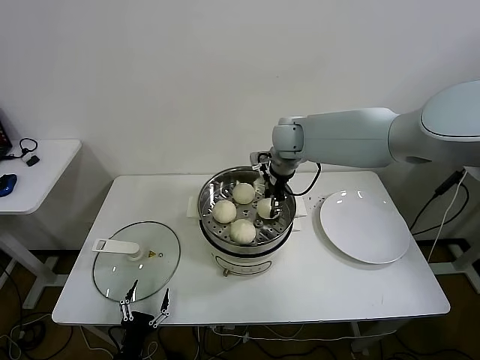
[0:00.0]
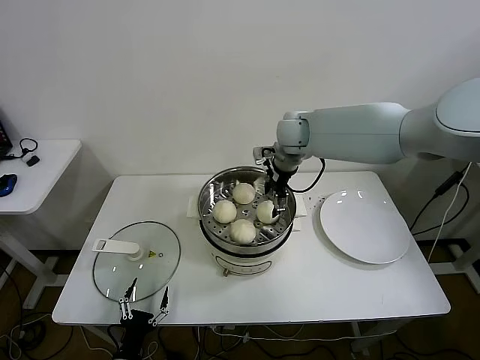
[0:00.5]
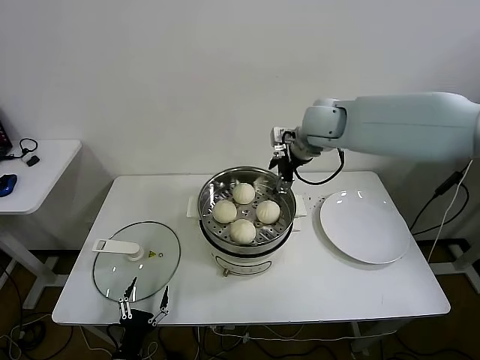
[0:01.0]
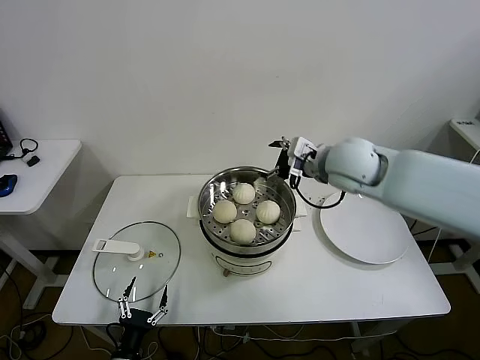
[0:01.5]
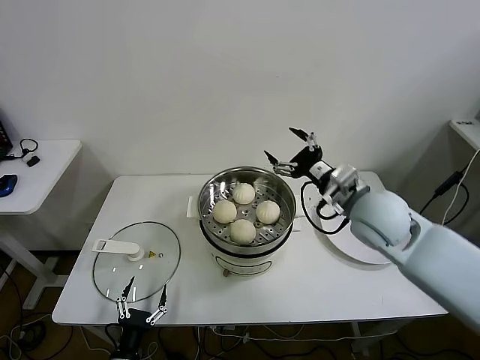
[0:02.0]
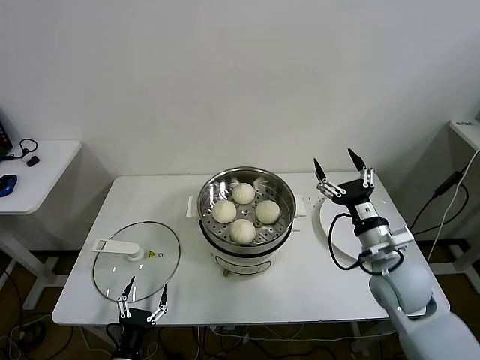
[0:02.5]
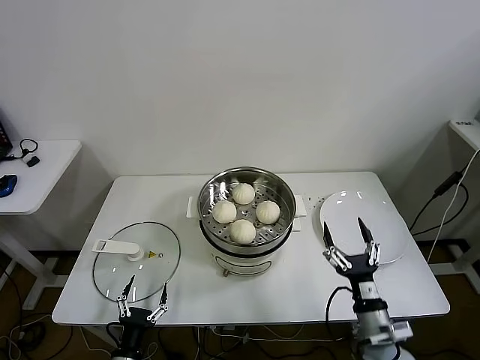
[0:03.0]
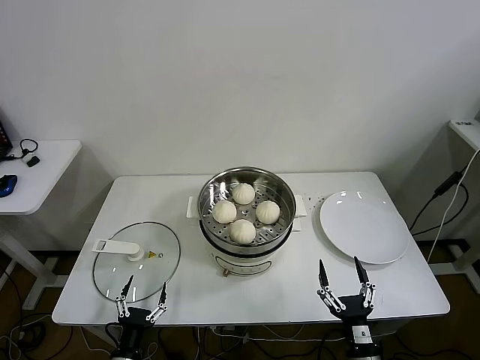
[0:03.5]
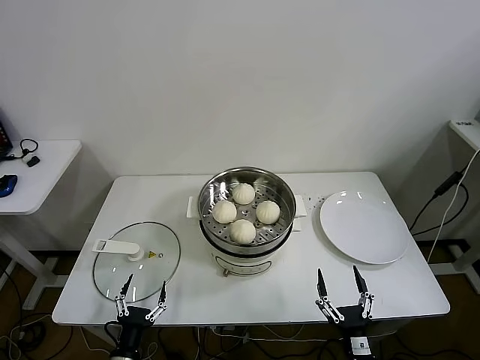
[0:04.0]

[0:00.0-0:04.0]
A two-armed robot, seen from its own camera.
Task of the whole recording: take steamed baozi put them in steamer.
0:00.0 to 0:02.0: The right gripper shifts about 25 cm backward and to the right, and opens its fingers.
0:02.0 to 0:04.0: The right gripper travels downward and backward by roughly 40 cm.

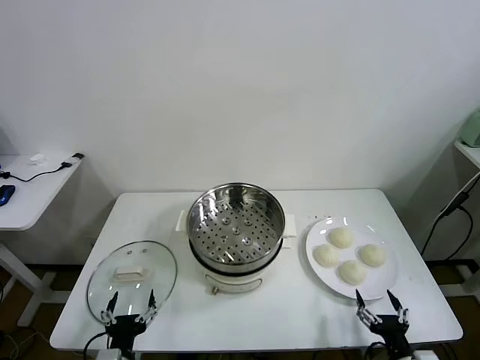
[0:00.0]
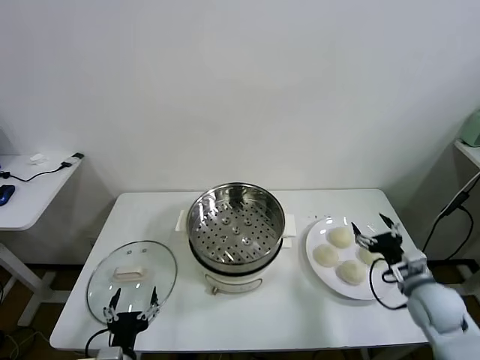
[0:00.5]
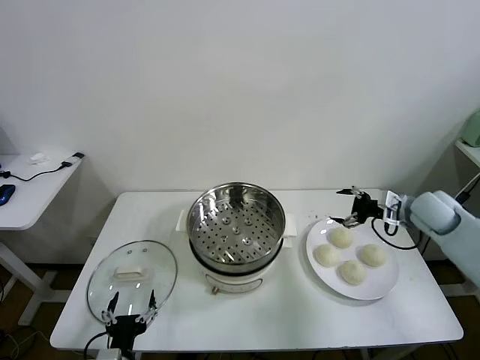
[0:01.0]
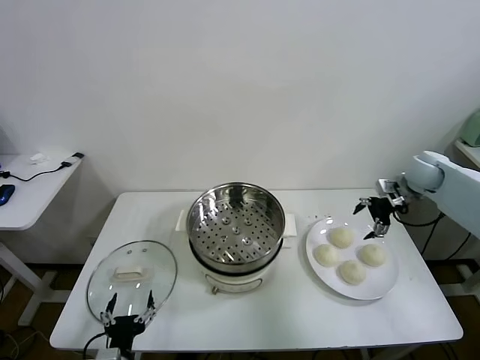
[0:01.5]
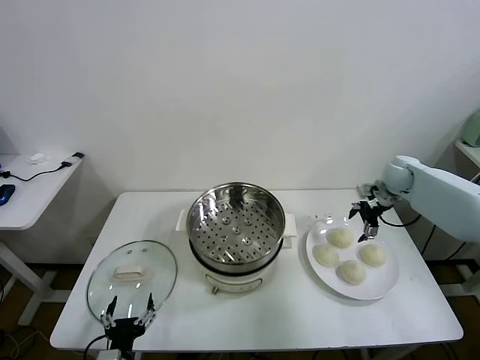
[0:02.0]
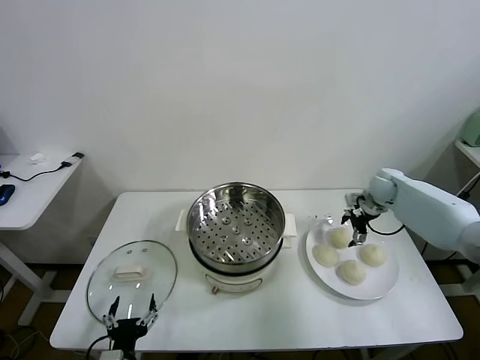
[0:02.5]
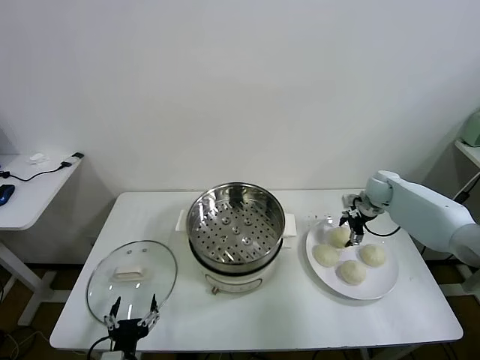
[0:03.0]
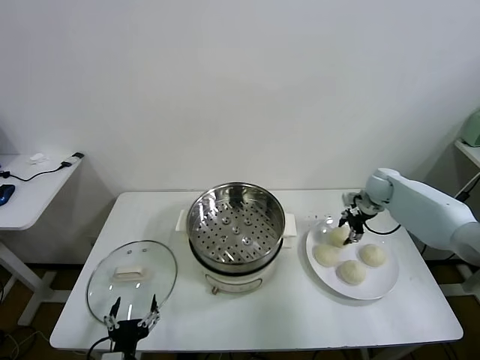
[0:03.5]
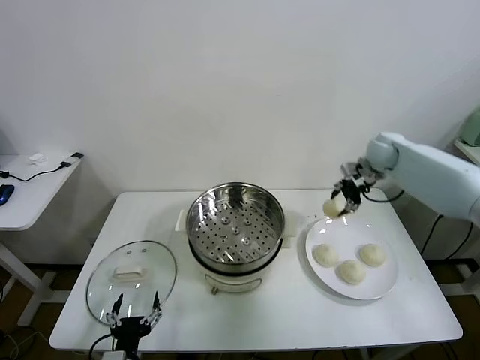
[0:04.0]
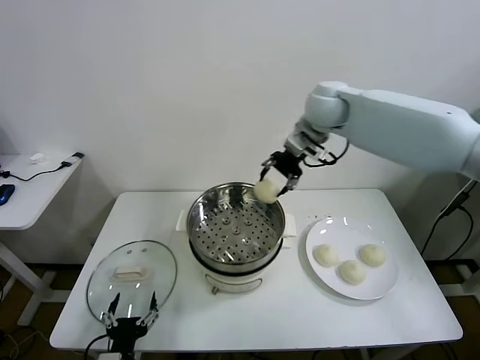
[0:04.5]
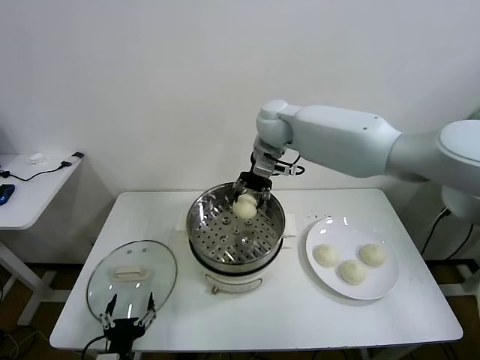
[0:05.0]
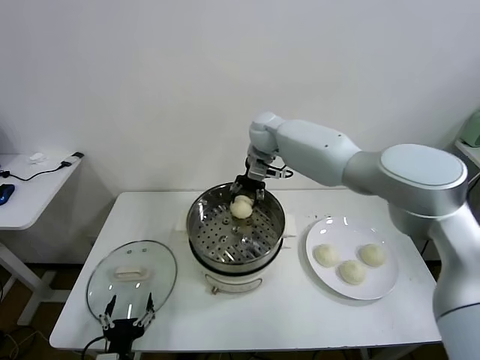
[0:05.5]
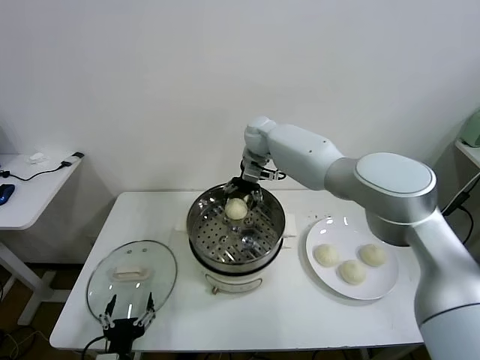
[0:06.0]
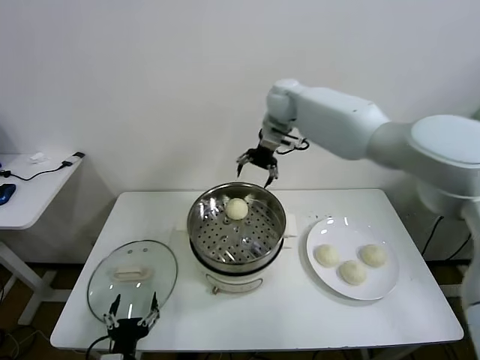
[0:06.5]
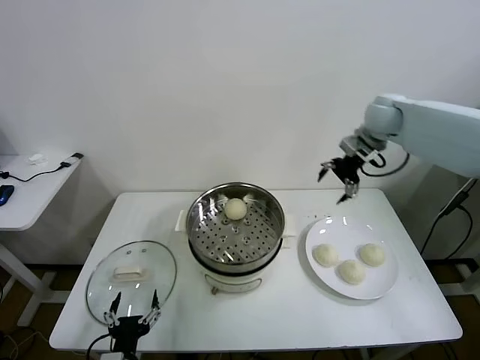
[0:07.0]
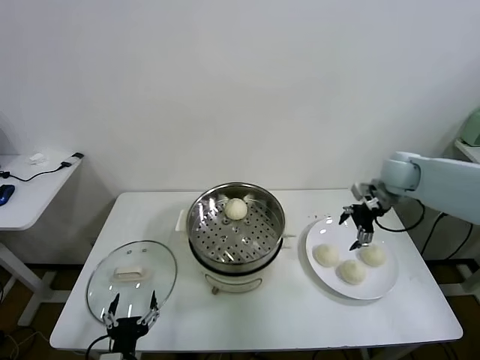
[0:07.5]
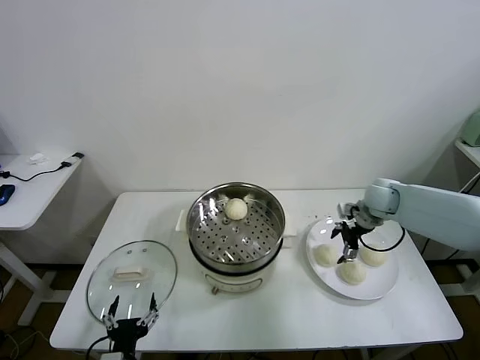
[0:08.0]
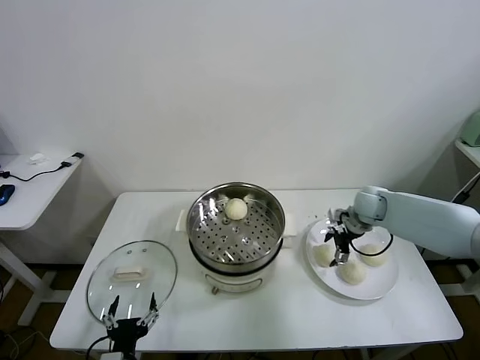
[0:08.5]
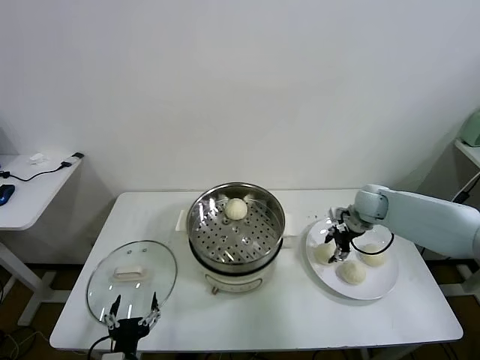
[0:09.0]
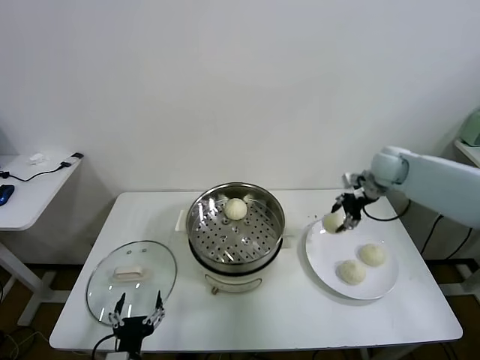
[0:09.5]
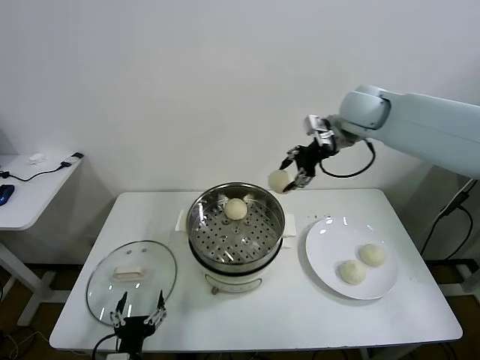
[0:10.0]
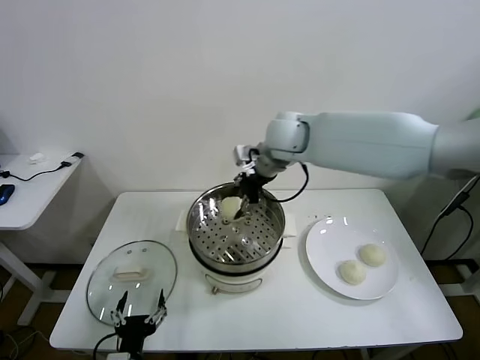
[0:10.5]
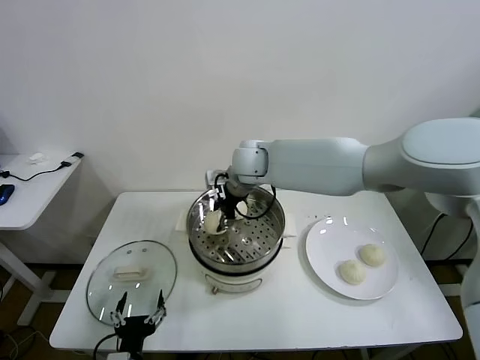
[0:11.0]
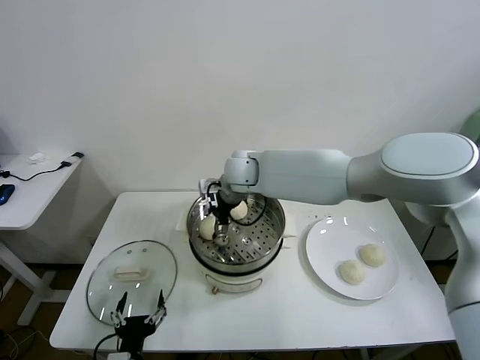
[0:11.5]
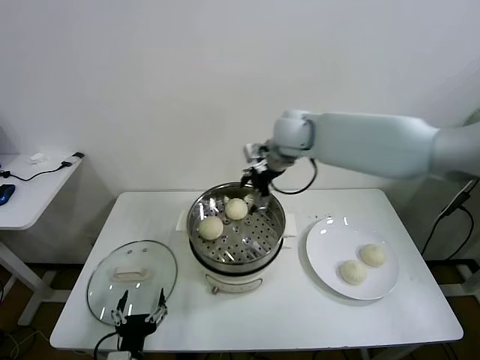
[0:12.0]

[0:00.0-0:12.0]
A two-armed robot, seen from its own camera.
Task of the whole recording: take steamed baozi put them in steamer.
Step, 0:00.0 to 0:03.0: Grasp the baozi in the plate with right gripper.
Step, 0:03.5 to 0:06.0: Place the baozi on the steamer with right gripper.
Step, 0:06.5 to 0:08.5: Grasp the baozi in the plate with right gripper.
Step, 0:09.0 to 0:11.5: Place the baozi on the steamer with right gripper.
0:02.0 to 0:04.0: The right gripper is displaced upward and to the left by approximately 10 cm, and closes.
0:04.0 to 0:06.0: The right gripper moves to the left, some 30 cm, and opens its fingers.
0:06.0 to 0:08.0: The right gripper travels to the right by some 30 cm.
0:08.0 to 0:10.0: The right gripper goes about 25 cm upward and to the left, and closes.
0:10.0 to 0:12.0: The right gripper shifts some 15 cm to the left, and opens.

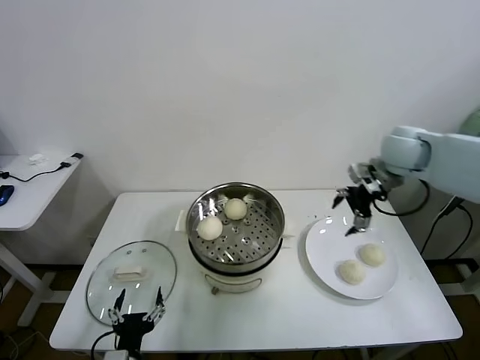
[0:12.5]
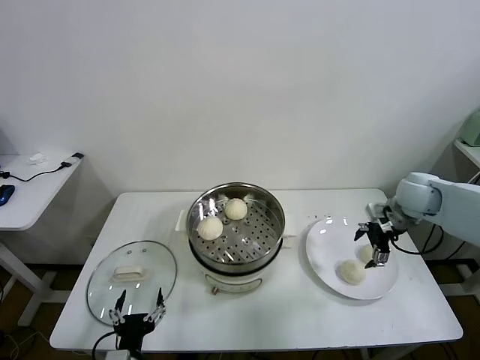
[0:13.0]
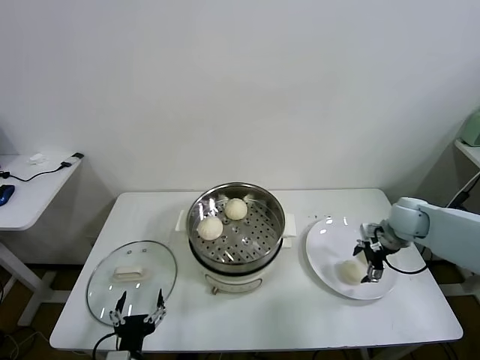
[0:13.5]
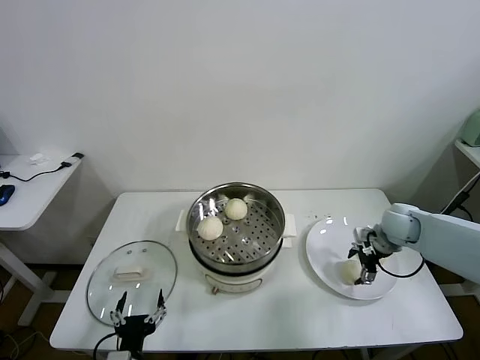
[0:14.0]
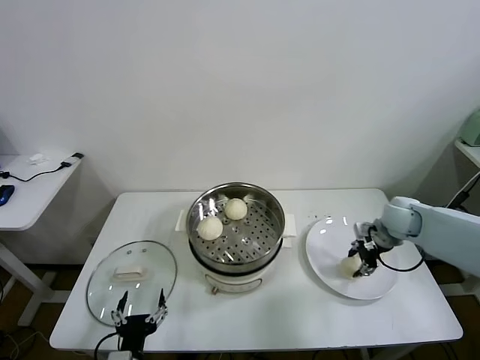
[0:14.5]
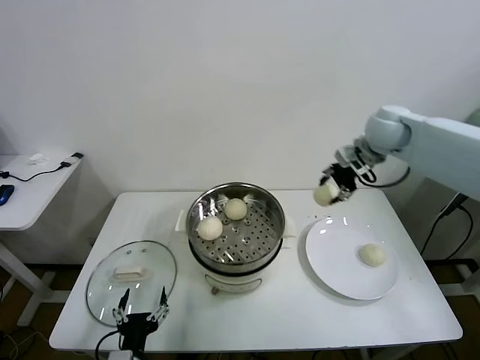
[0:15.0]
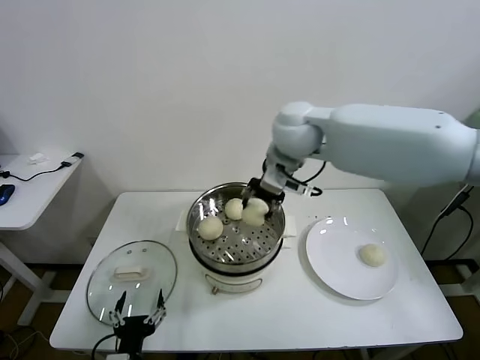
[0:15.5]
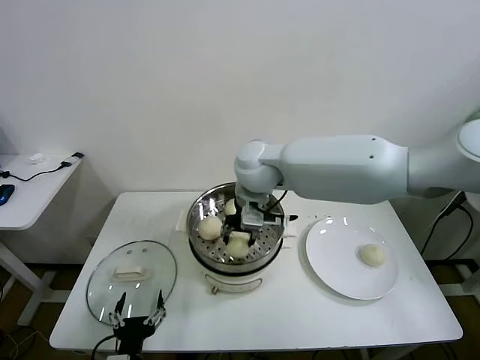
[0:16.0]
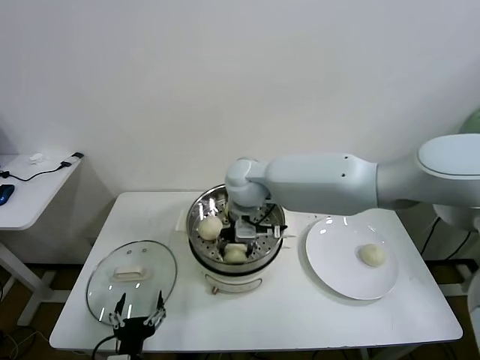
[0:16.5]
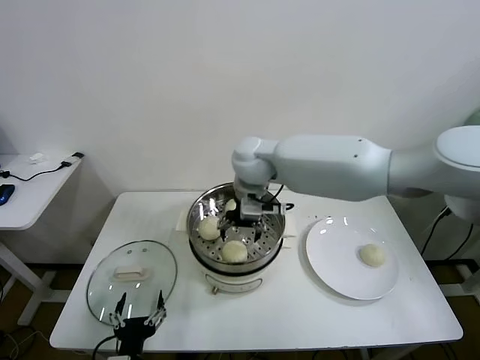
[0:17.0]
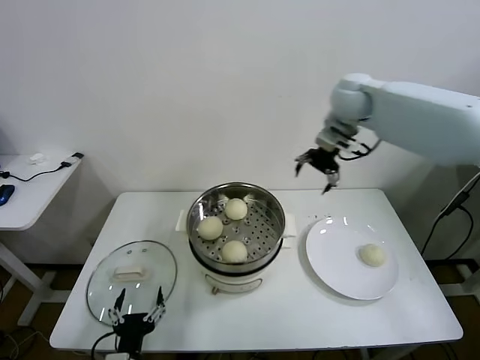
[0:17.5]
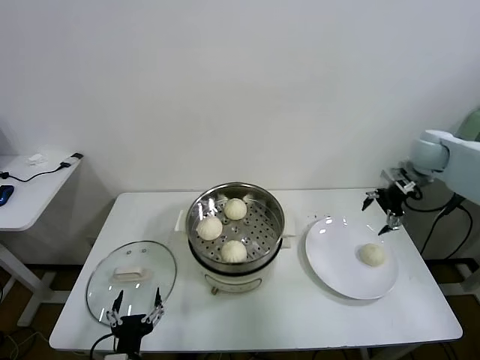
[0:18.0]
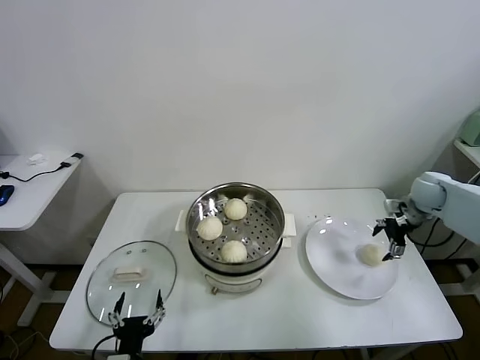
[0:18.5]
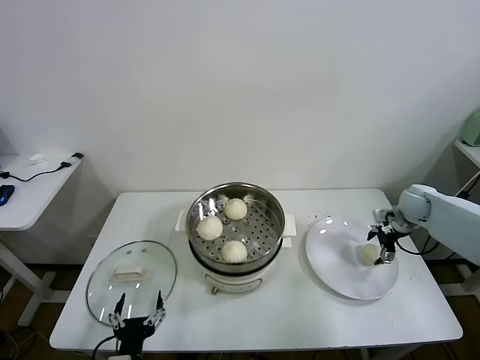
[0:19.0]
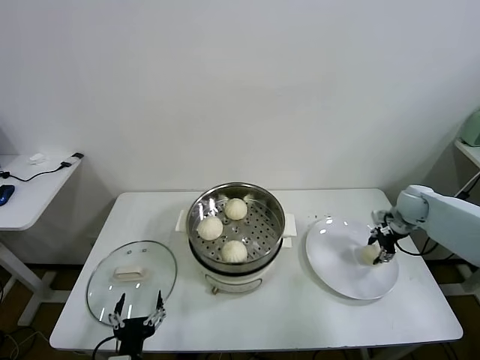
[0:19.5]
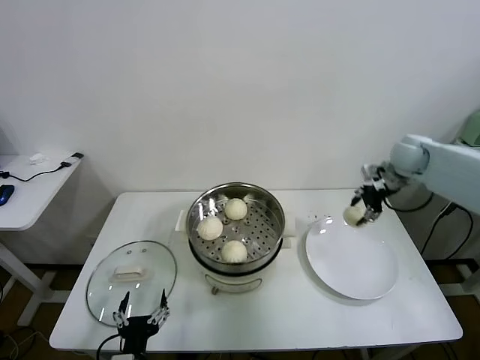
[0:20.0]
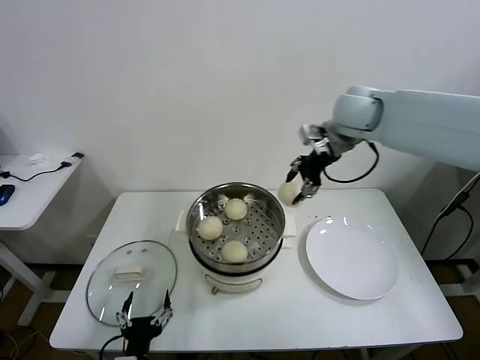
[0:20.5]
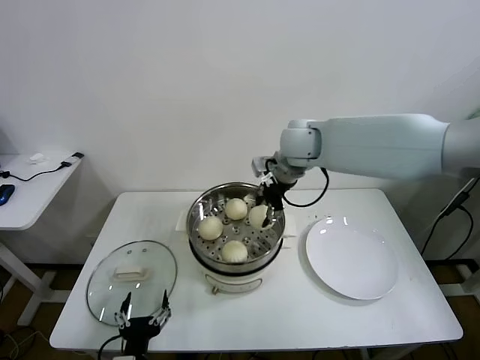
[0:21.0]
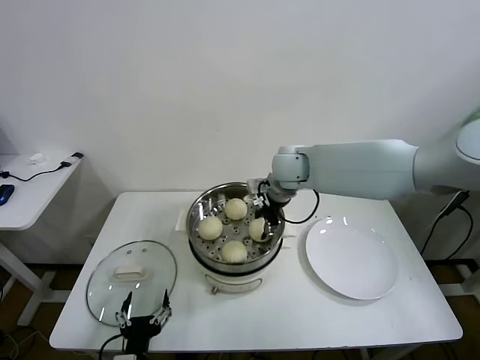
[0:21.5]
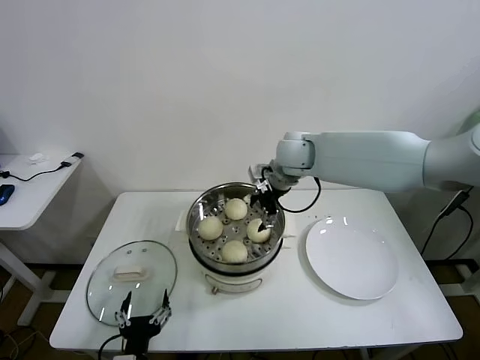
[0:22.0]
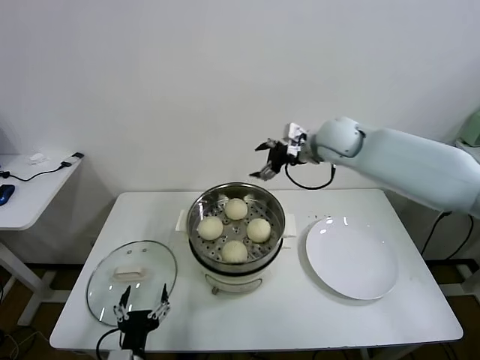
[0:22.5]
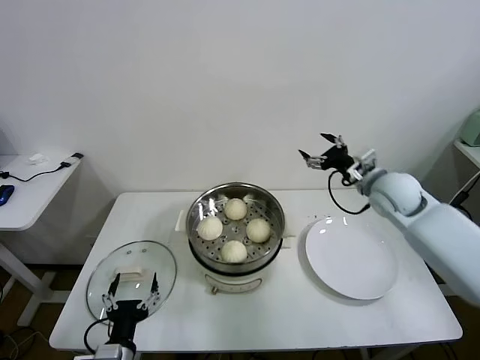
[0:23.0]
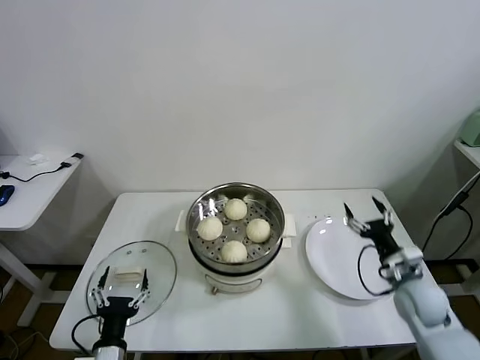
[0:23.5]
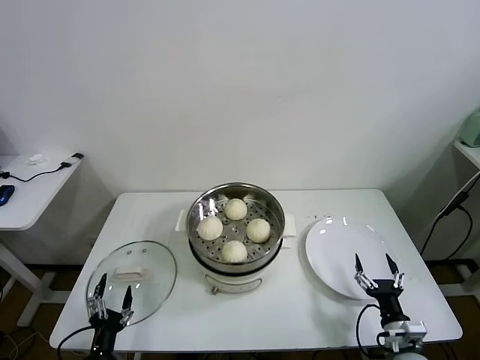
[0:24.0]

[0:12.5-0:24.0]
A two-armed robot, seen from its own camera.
Task of the whole recording: take steamed baozi put them in steamer.
Step, 0:12.5 to 0:14.0: Grasp the baozi in the plate with right gripper.
Step, 0:14.5 to 0:16.5: Place the baozi on the steamer with right gripper.
Step, 0:17.0 to 0:19.0: Grasp the baozi in the plate with right gripper.
Step, 0:19.5 to 0:21.5: Place the baozi on the steamer with right gripper.
0:12.5 to 0:14.5: The right gripper travels downward by approximately 20 cm, and closes up.
0:14.5 to 0:16.5: The right gripper moves to the left, about 40 cm, and opens its fingers.
0:16.5 to 0:18.5: The right gripper heads to the right, covering about 50 cm, and opens up.
0:18.5 to 0:20.0: The right gripper shifts about 10 cm upward and to the left, and closes up.
0:20.0 to 0:22.0: The right gripper heads to the left, covering about 30 cm, and opens its fingers.
0:22.0 to 0:24.0: The right gripper is displaced backward, downward and to the right by roughly 50 cm. The left gripper heads to the left and downward, covering some 10 cm.
